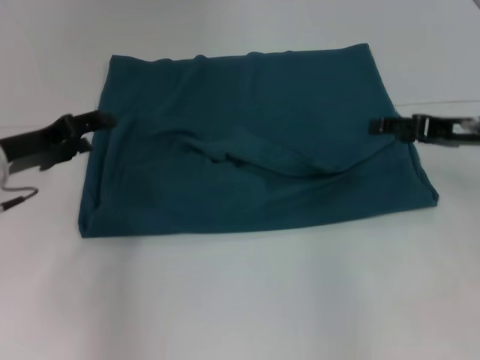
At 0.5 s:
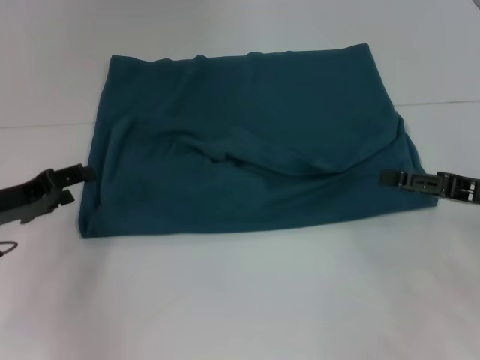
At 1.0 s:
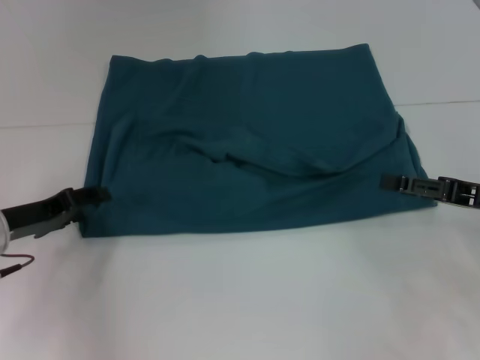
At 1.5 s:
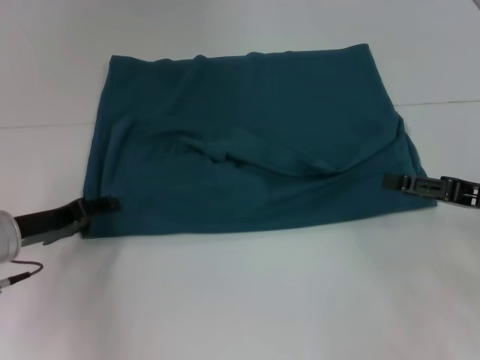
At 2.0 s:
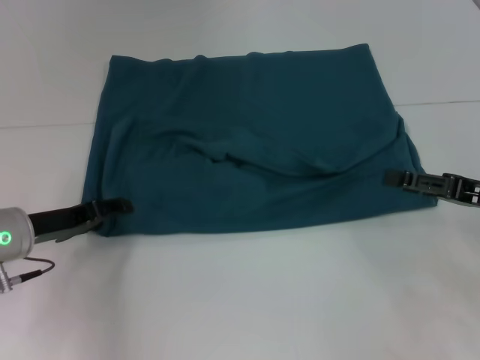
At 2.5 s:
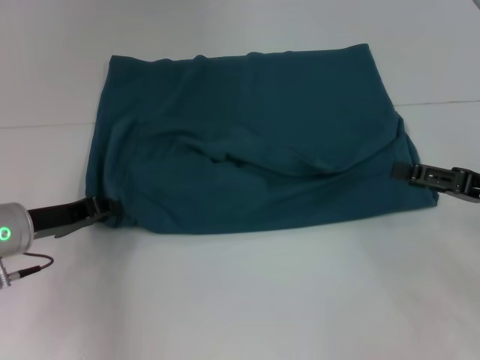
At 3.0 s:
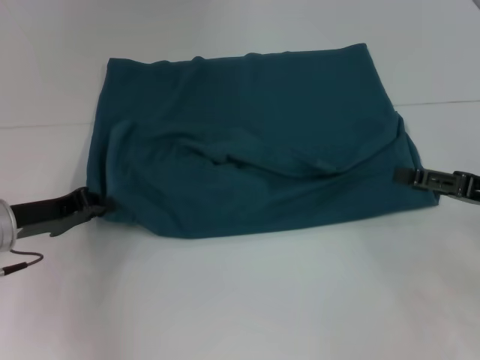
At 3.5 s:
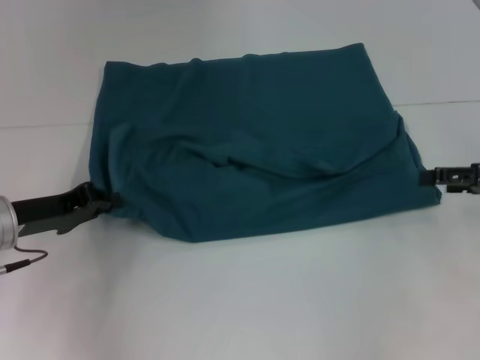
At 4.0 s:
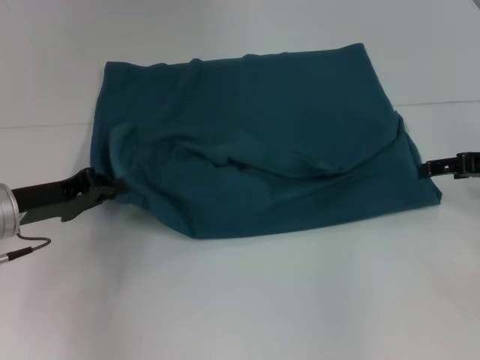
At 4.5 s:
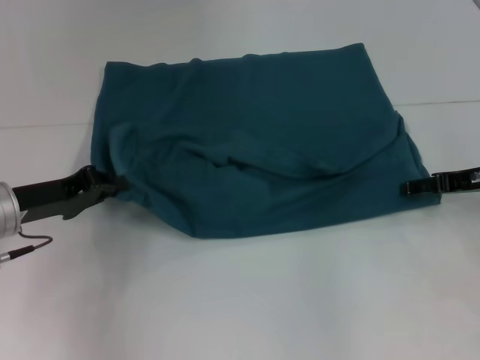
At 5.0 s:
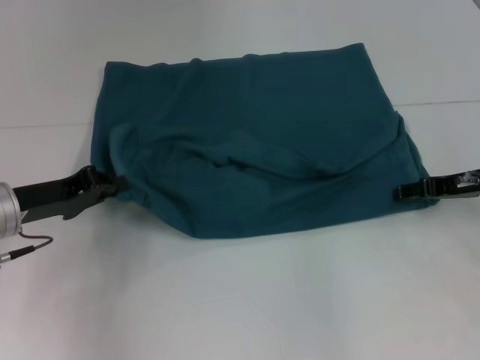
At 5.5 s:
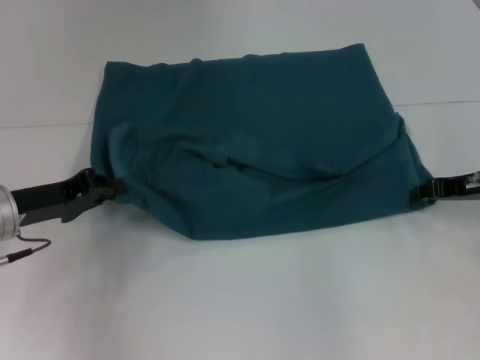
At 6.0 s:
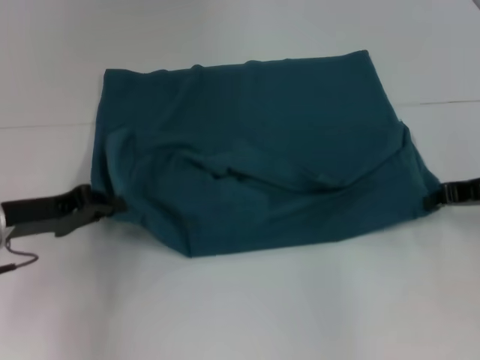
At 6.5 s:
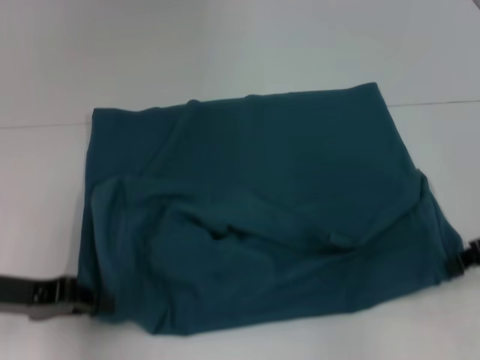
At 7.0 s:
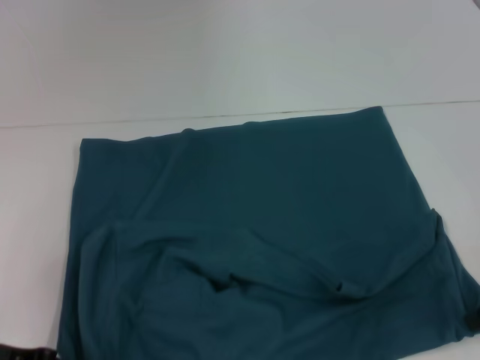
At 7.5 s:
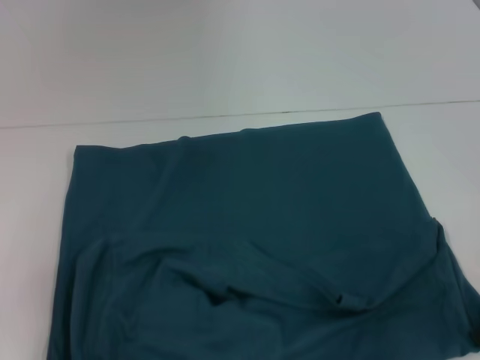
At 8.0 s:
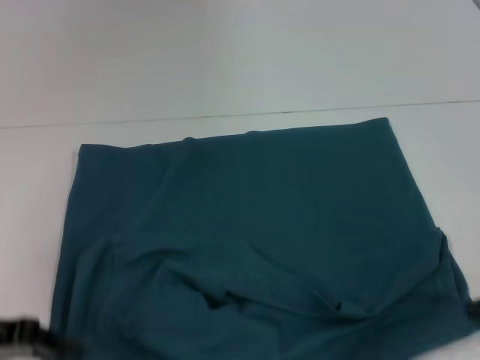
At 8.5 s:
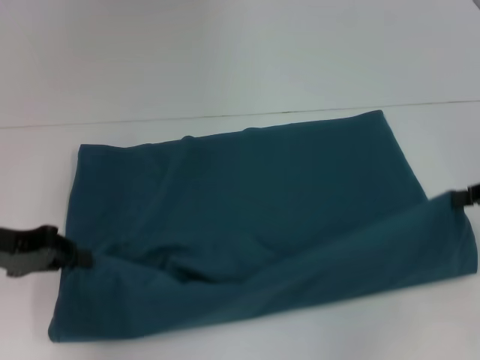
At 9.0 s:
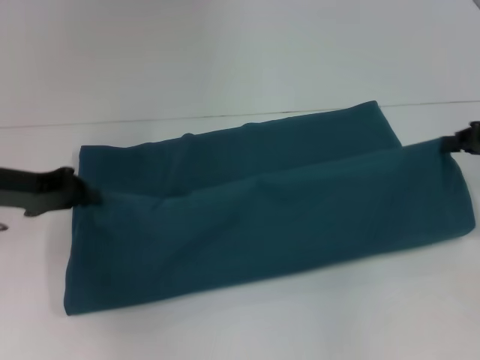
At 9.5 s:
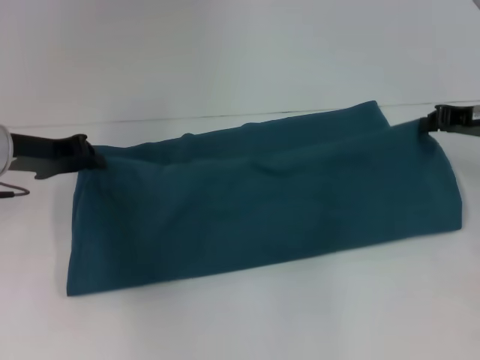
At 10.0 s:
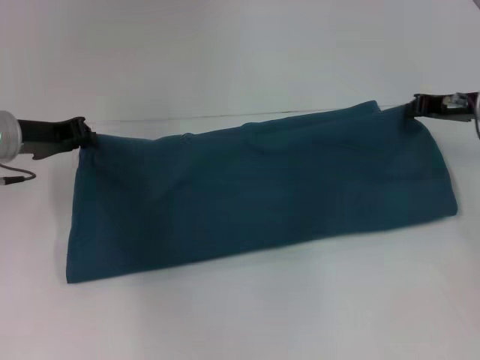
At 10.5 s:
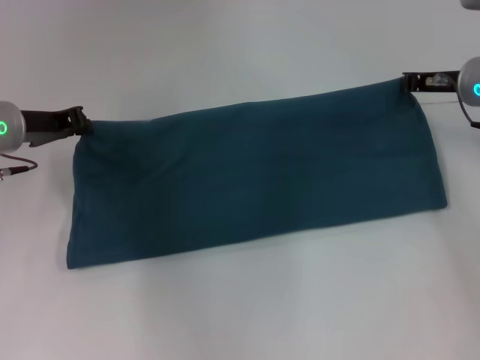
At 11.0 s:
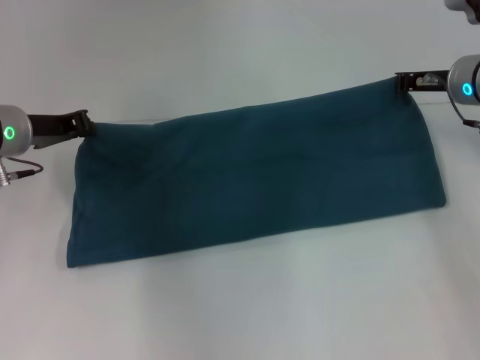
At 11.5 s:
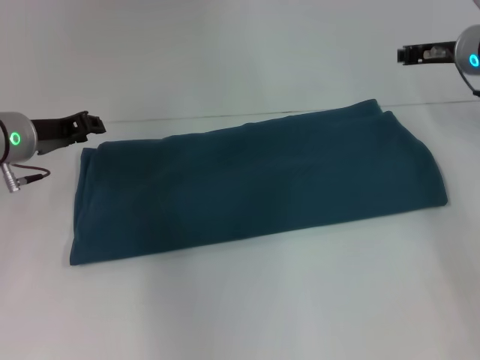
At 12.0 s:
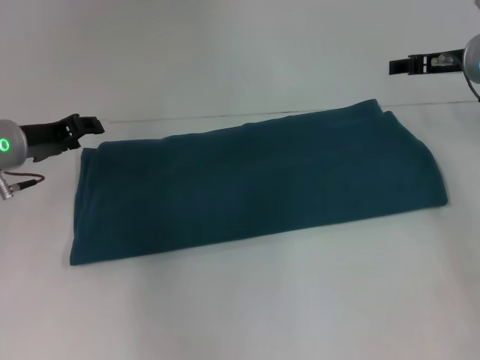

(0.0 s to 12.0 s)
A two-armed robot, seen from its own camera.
Step, 0.0 s - 7.5 s: Pull the clothes with your left hand.
Step, 0.0 s - 7.5 s: Pull the clothes with your right hand.
Step, 8.0 s - 11.5 s: Fold the clothes to the right.
0.0 s - 2.0 s: The left gripper is displaced downward by approximately 5 cm, while the right gripper shifts about 10 cm backward.
2.0 s - 4.0 s: The left gripper closes. The right gripper goes approximately 5 cm forward.
4.0 s - 6.0 s: The right gripper closes its fingers.
6.0 s - 8.0 s: The grippers both shift backward by about 10 cm.
8.0 s - 10.0 s: Both grippers travel together forward, some 15 cm.
10.0 s - 12.0 s: The left gripper opens, while the right gripper moves about 5 cm, and opens up.

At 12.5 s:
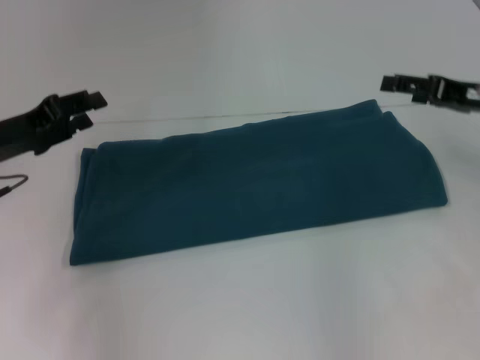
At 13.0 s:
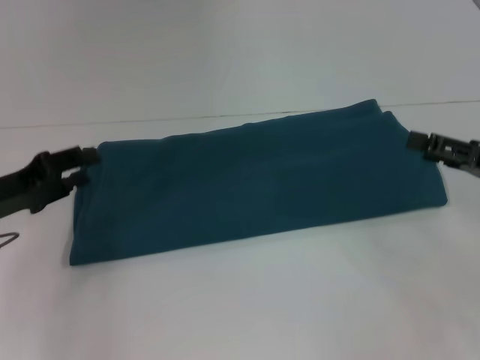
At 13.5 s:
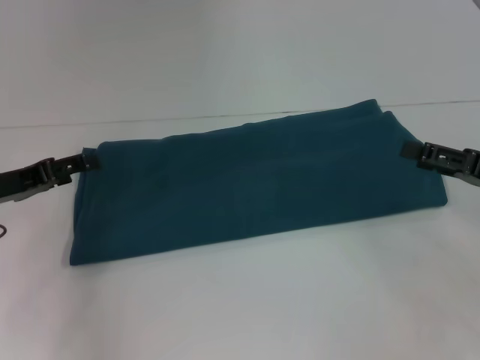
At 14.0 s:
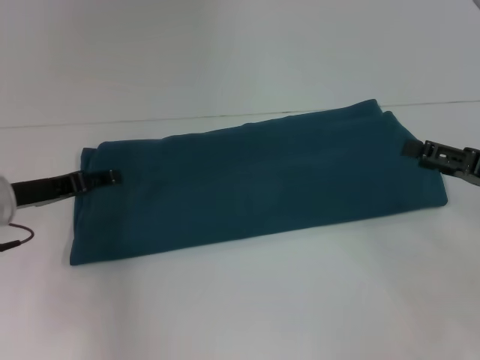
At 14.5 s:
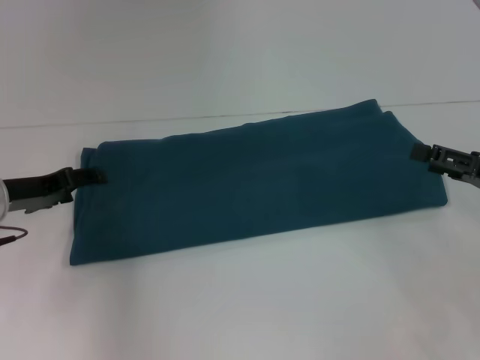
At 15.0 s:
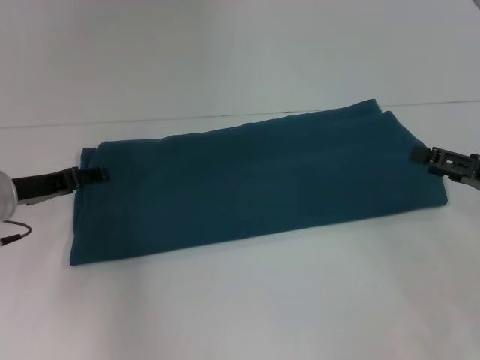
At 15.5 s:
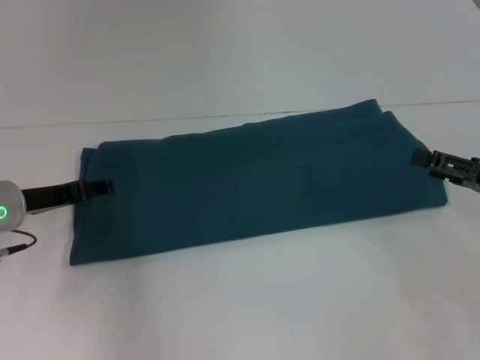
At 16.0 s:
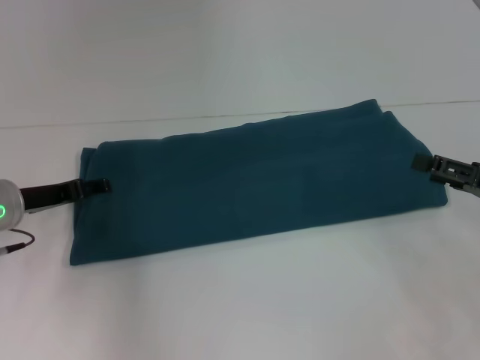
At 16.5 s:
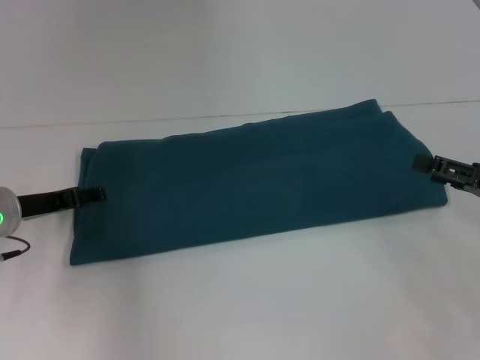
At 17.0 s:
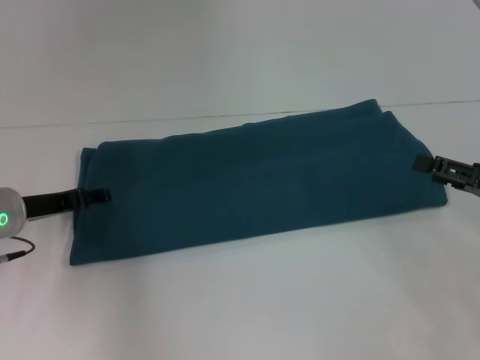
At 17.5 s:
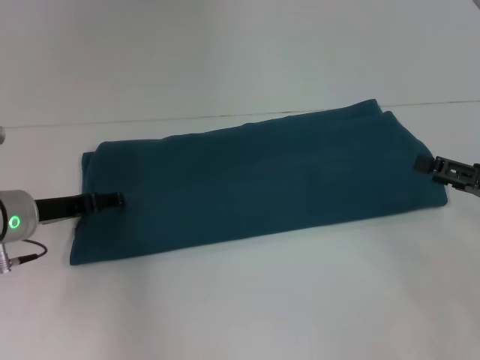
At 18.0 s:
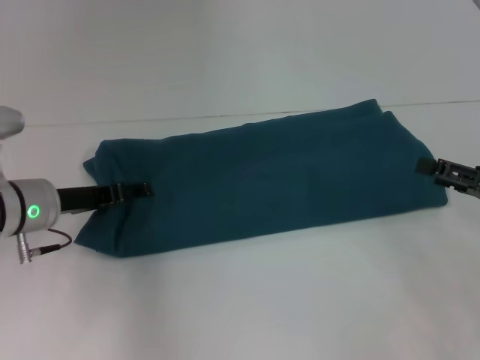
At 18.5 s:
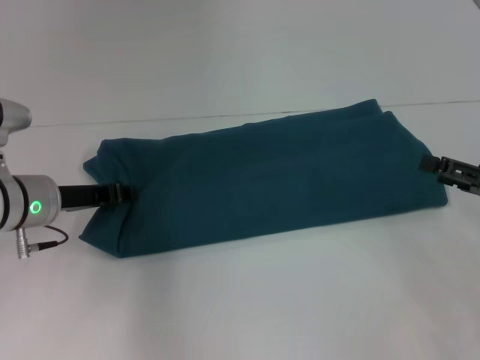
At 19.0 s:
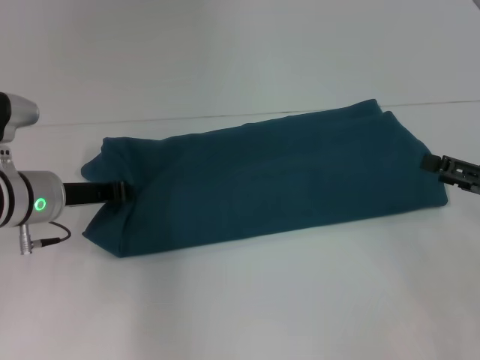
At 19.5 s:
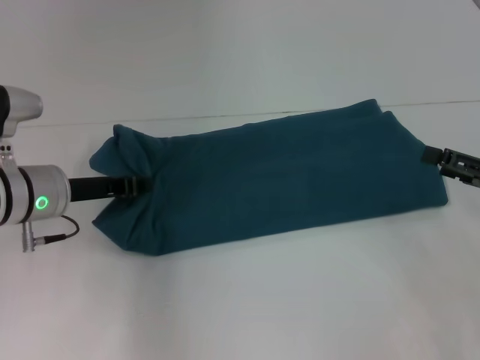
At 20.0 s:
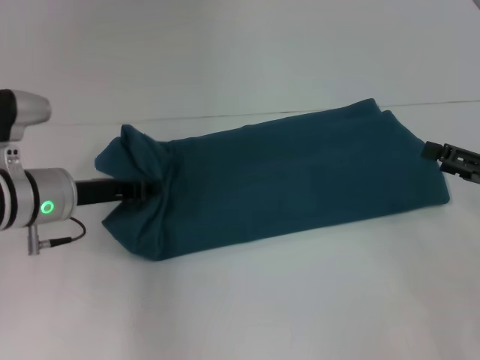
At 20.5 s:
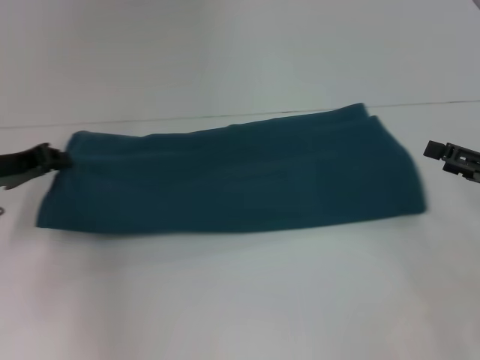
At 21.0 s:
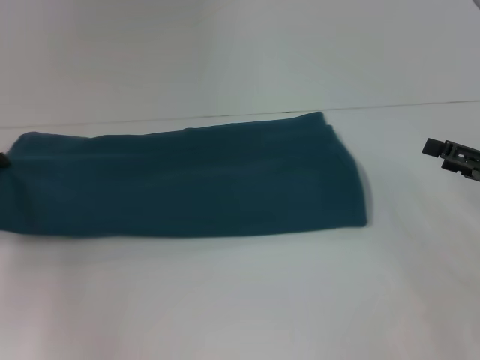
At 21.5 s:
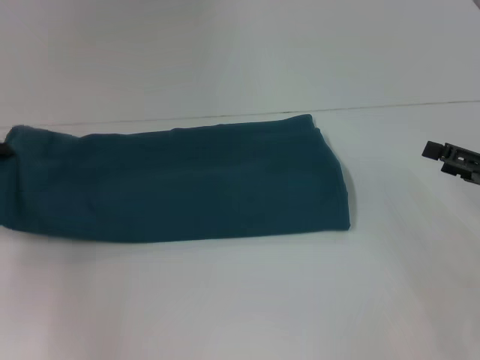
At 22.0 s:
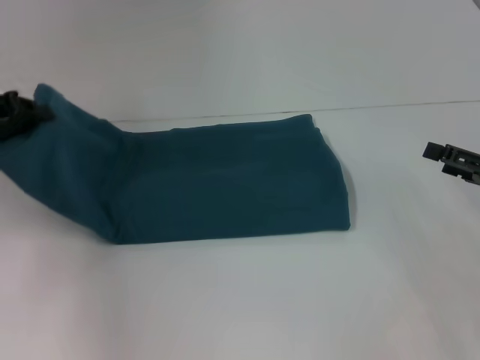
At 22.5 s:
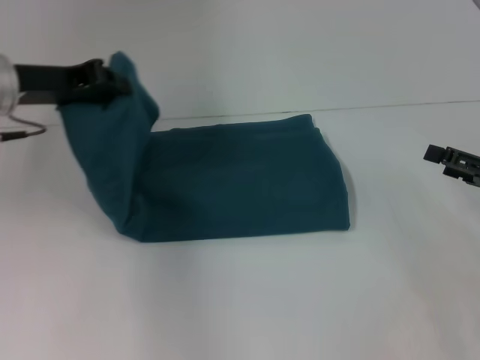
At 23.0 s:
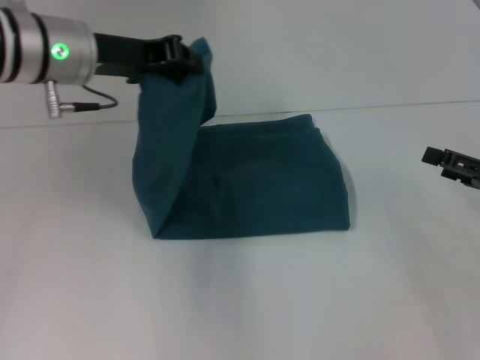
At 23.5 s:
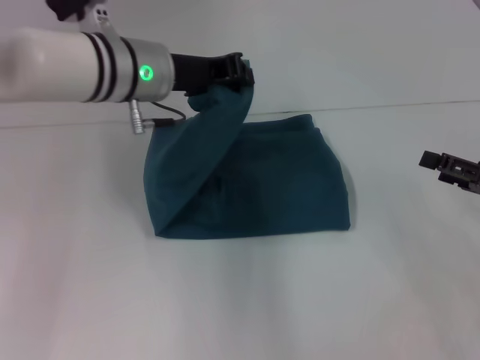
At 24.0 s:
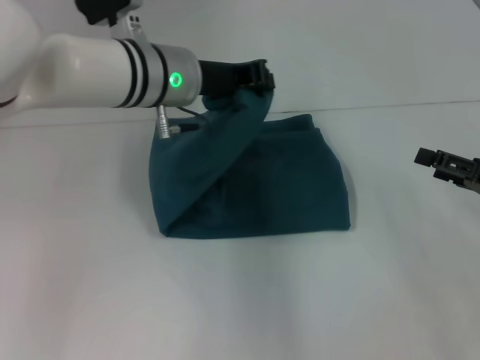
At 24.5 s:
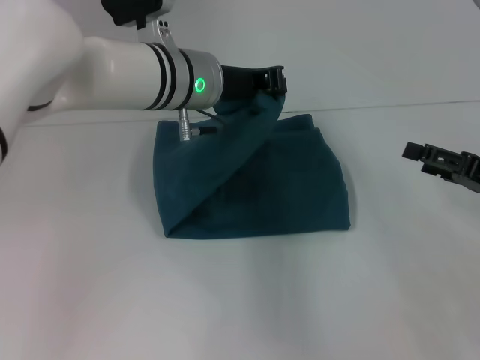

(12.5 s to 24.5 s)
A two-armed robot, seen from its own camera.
12.5 s - 14.5 s: The right gripper goes roughly 10 cm backward and downward.
14.5 s - 16.5 s: The grippers stay close to where they were, moving slightly.
16.5 s - 18.5 s: The left gripper closes its fingers.
18.5 s - 20.5 s: The left gripper shifts roughly 5 cm to the left, and closes up.
20.5 s - 22.5 s: The left gripper is displaced upward and to the right by roughly 10 cm.
22.5 s - 24.5 s: The left gripper travels to the right by about 20 cm.

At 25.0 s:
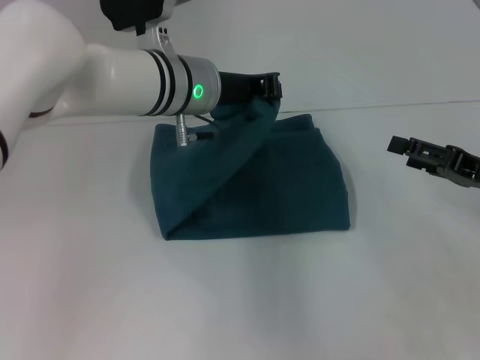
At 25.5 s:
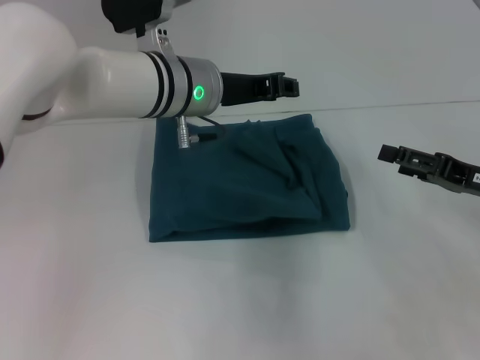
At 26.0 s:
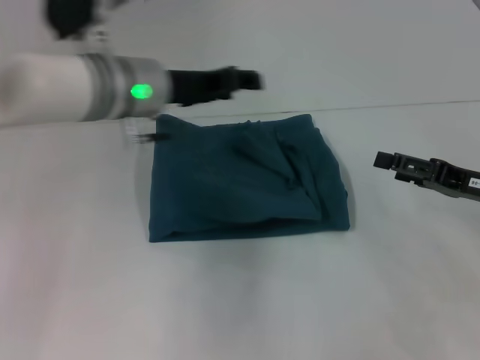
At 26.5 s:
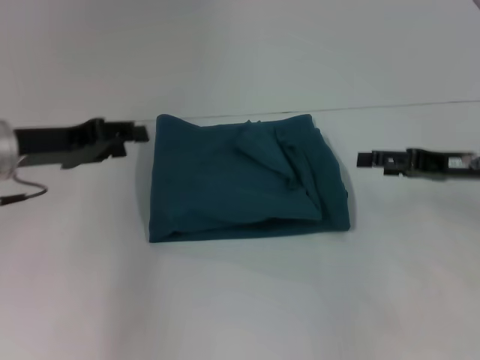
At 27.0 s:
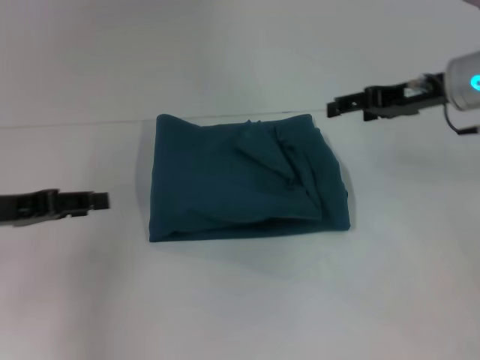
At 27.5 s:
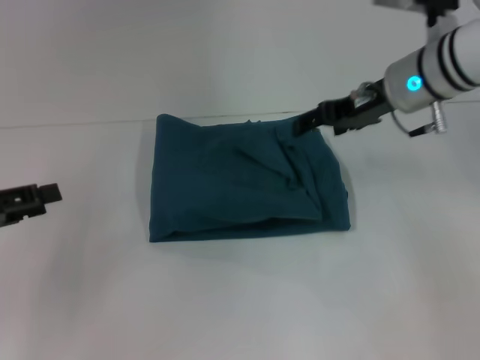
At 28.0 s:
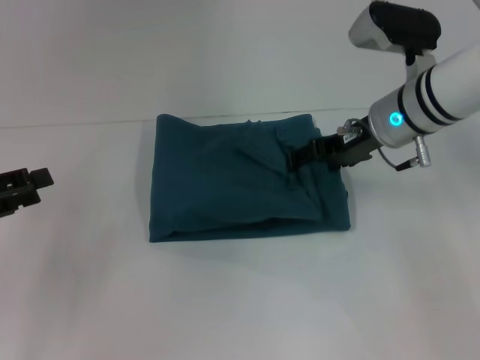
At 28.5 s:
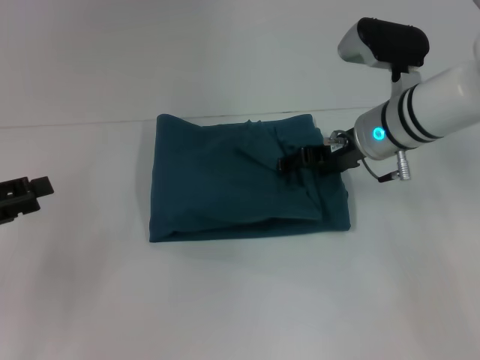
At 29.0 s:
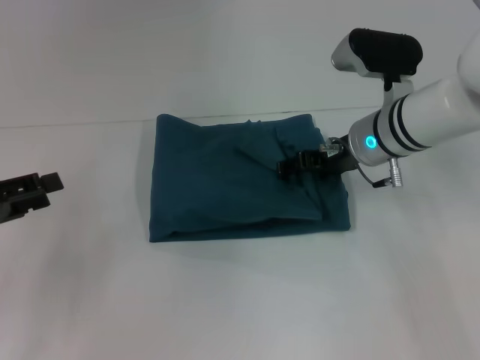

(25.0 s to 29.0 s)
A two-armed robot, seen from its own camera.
25.0 s - 27.0 s: The right gripper is displaced forward, upward and to the left by about 15 cm, while the left gripper is displaced to the left and backward by some 25 cm, and opens.
27.0 s - 29.0 s: The left gripper ends up approximately 5 cm from where it was. The right gripper goes roughly 10 cm to the left and downward.
